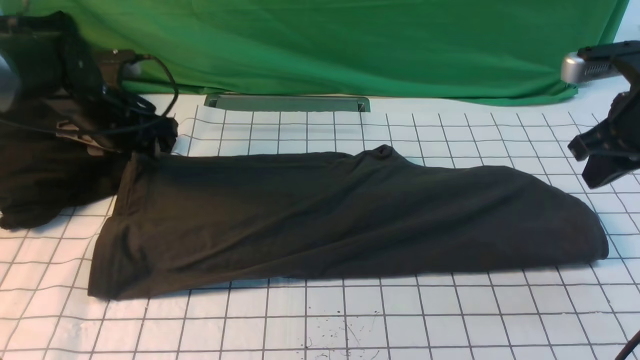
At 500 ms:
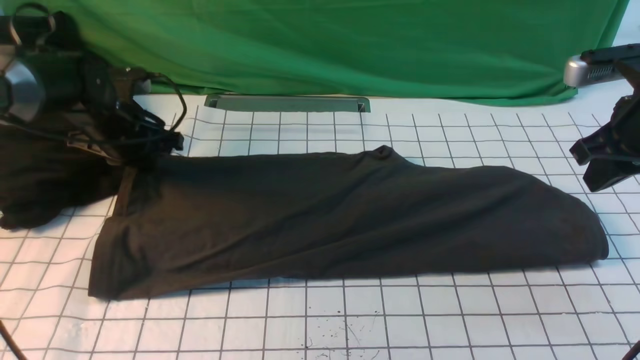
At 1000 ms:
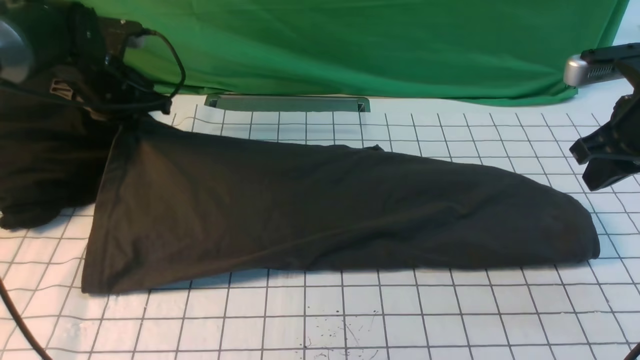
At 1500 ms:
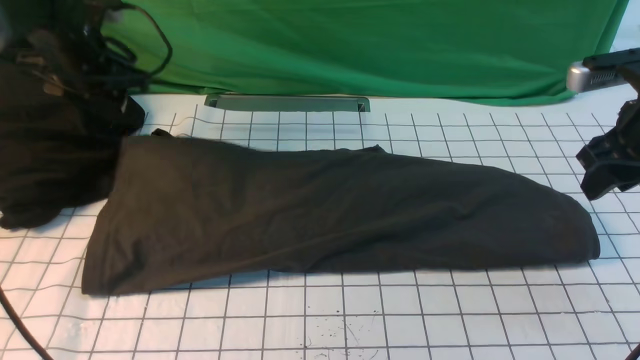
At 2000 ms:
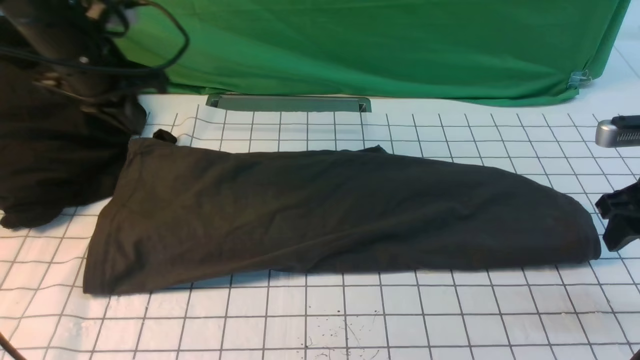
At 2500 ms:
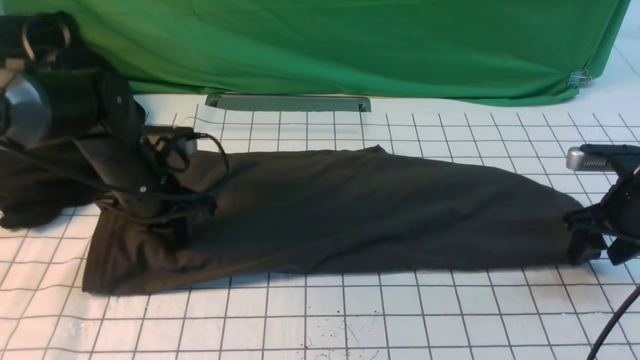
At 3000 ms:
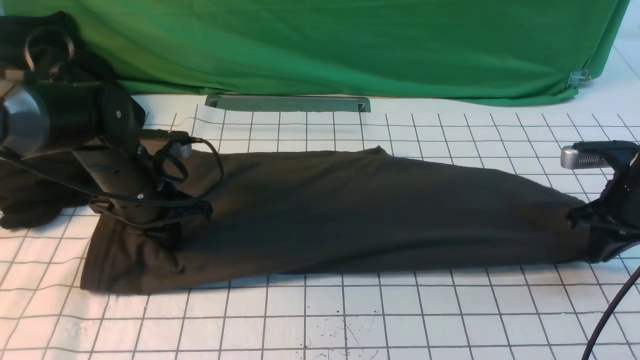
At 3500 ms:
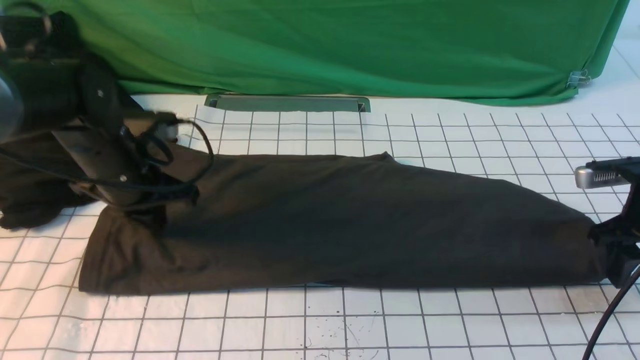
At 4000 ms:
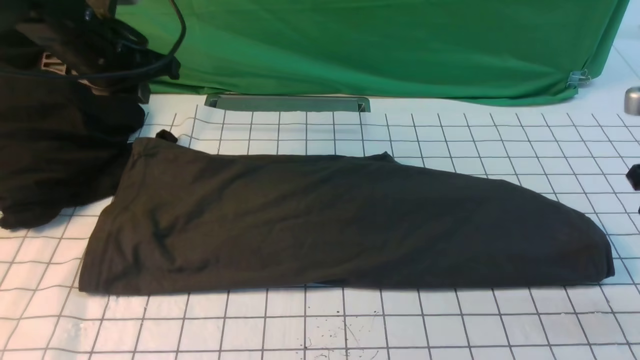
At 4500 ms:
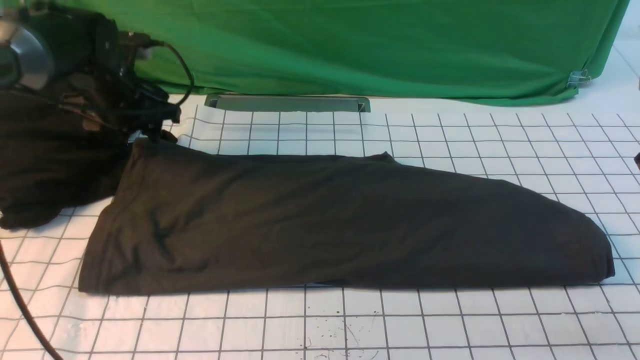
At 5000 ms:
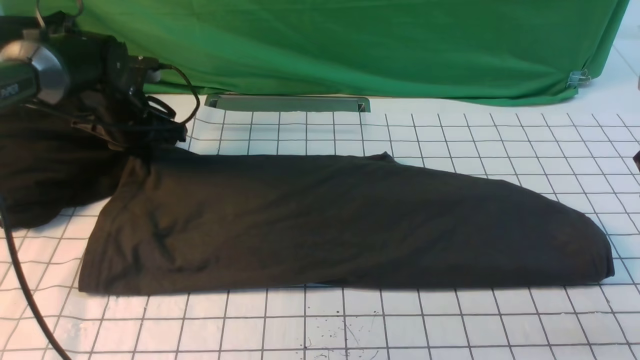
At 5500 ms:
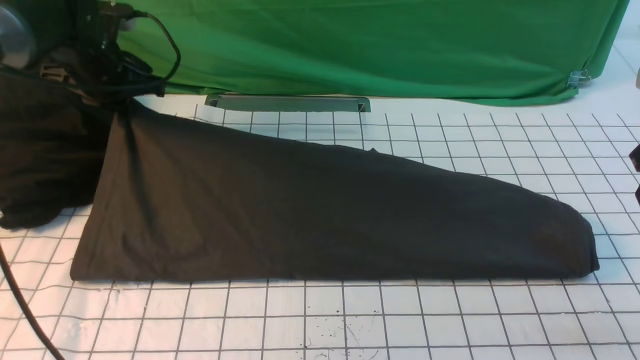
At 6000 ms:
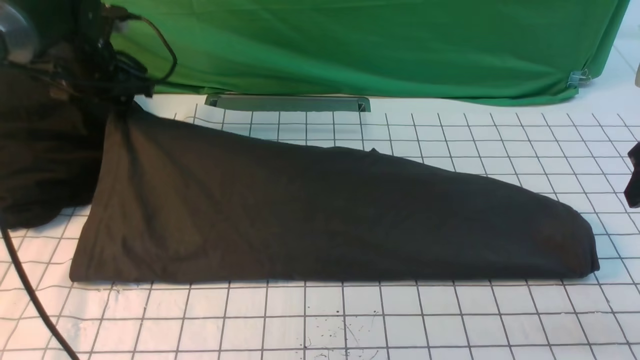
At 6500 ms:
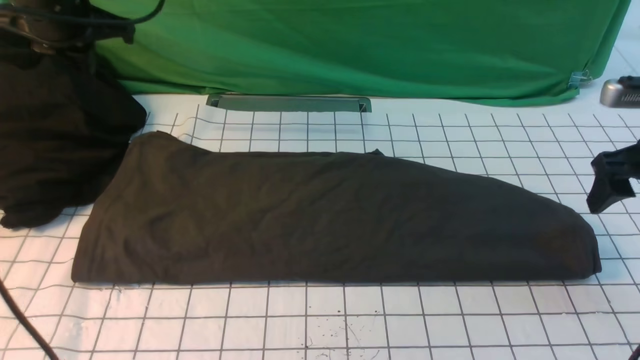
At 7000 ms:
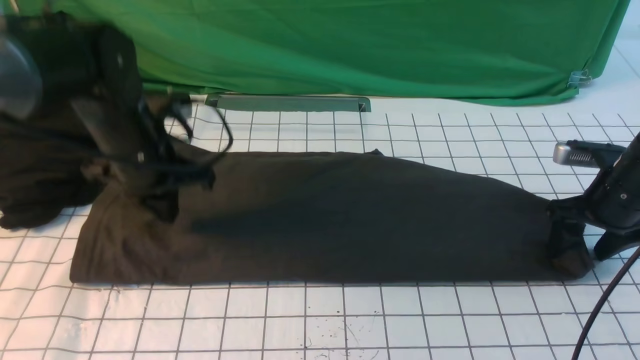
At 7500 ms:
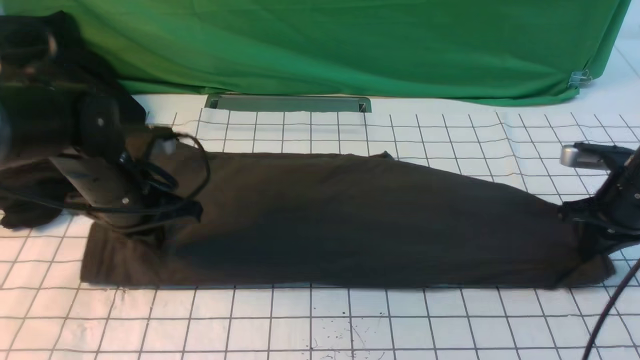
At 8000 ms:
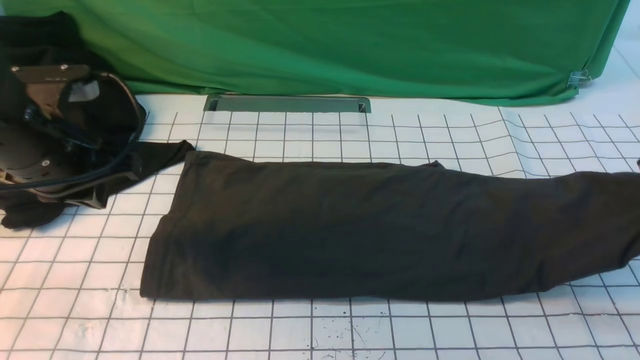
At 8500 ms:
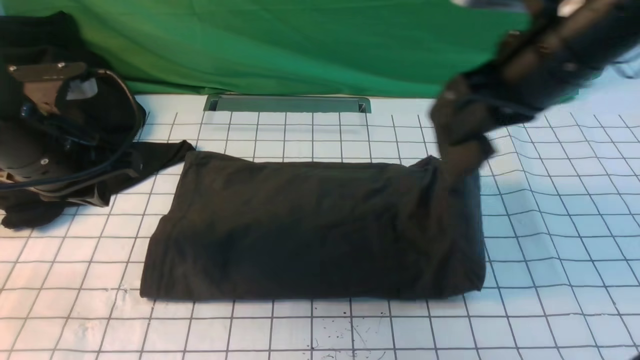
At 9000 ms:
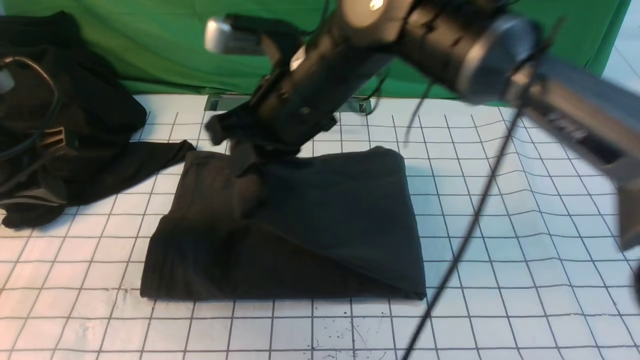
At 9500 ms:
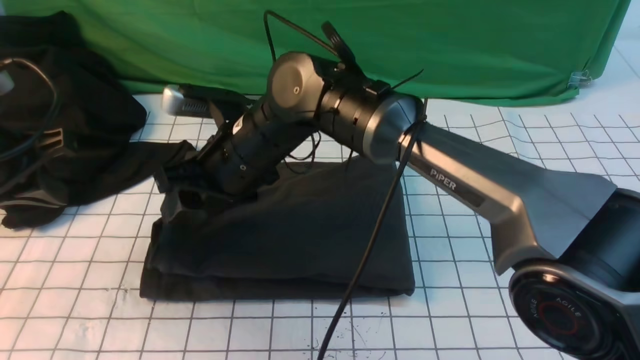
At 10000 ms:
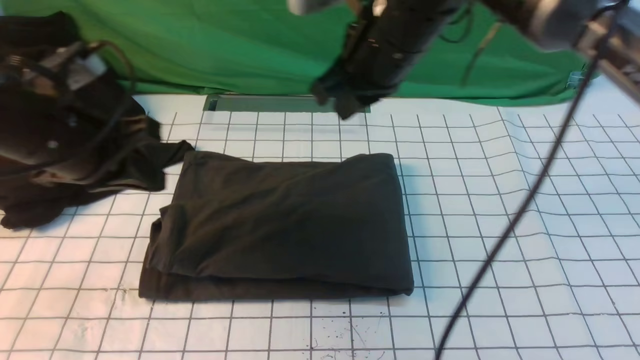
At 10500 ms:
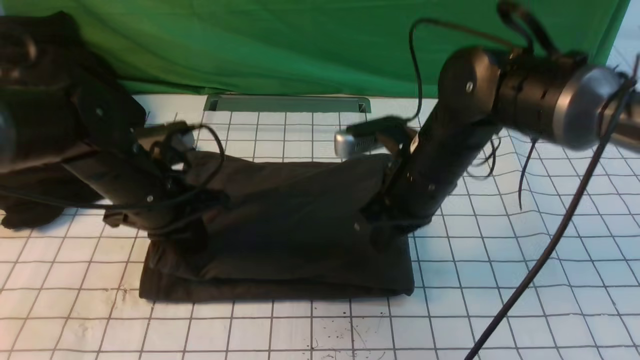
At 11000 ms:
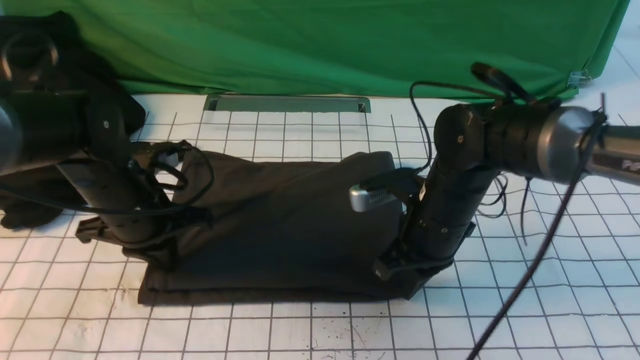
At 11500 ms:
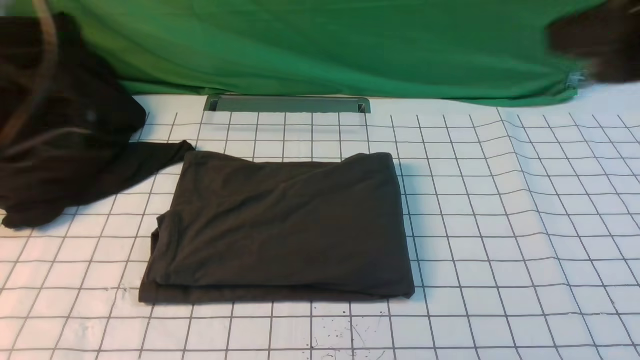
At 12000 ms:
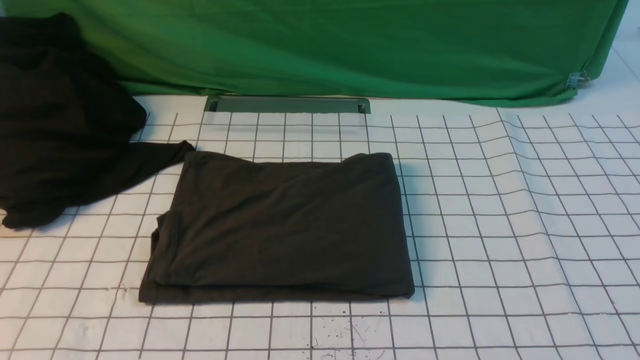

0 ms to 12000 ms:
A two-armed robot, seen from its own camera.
Step, 0 ms to 7000 ms: use the right arm to clamp the right edge of the fabric.
Step, 7500 ms to 9500 ms: use the right arm to drag the right edge of the fabric to the left and folds it over the left edge.
0 ms to 2000 ms: The left gripper shifts about 5 cm upward, and closes up. The right gripper goes about 5 cm downward, and opens.
2000 ms to 4000 ms: The right gripper closes, then reopens; the left gripper reaches some 10 cm downward, then returns.
4000 ms to 6000 ms: The left gripper shifts about 5 cm forward, travels downward and back again, about 10 cm each way, and opens its fingers.
6000 ms to 8000 ms: The left gripper shifts approximately 20 cm backward, and closes its fingers; the right gripper goes downward and returns, about 15 cm each way, and closes its fingers.
8000 ms to 10000 ms: The left gripper reaches some 5 cm to the left, then returns; the right gripper is displaced to the left by some 30 cm, and opens and closes again.
10000 ms to 12000 ms: The left gripper shifts approximately 30 cm backward; the right gripper moves backward and to the right, about 40 cm.

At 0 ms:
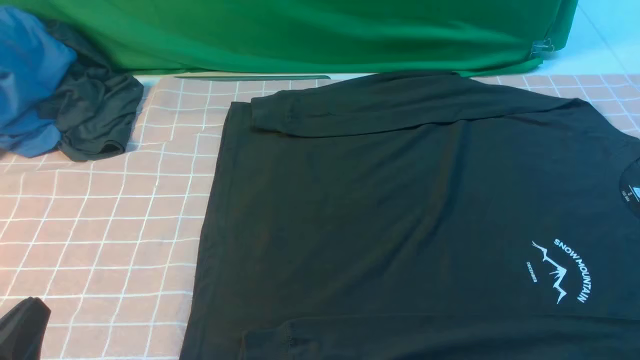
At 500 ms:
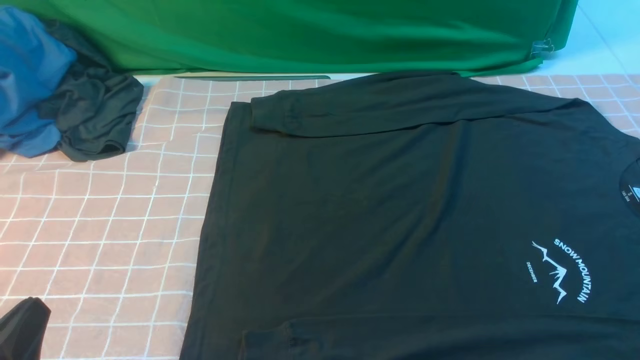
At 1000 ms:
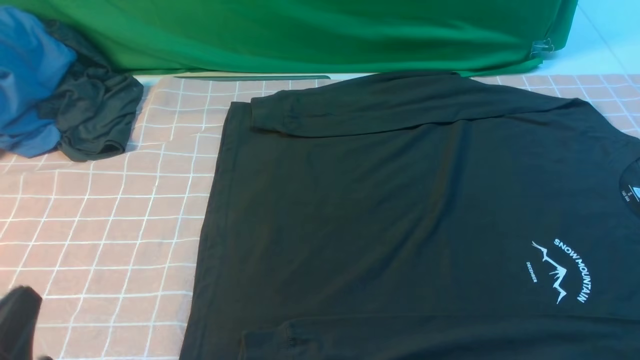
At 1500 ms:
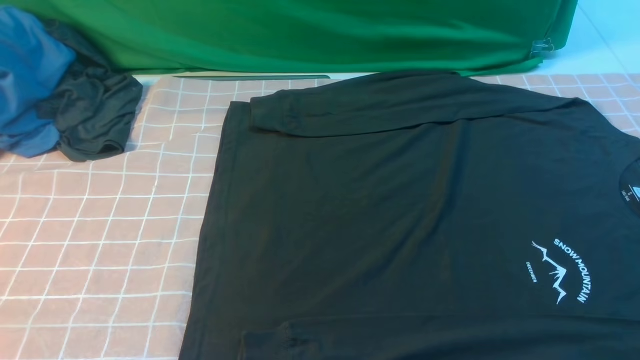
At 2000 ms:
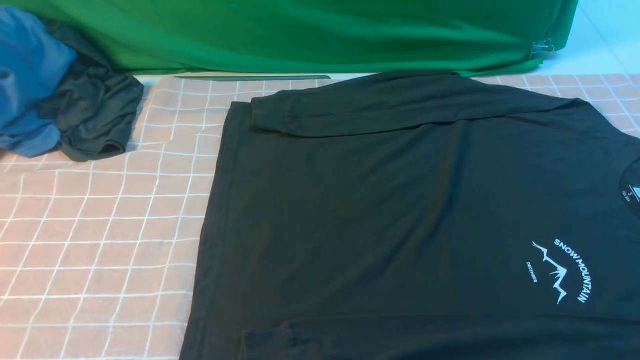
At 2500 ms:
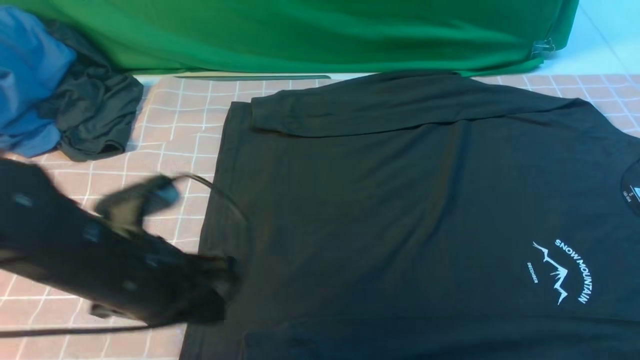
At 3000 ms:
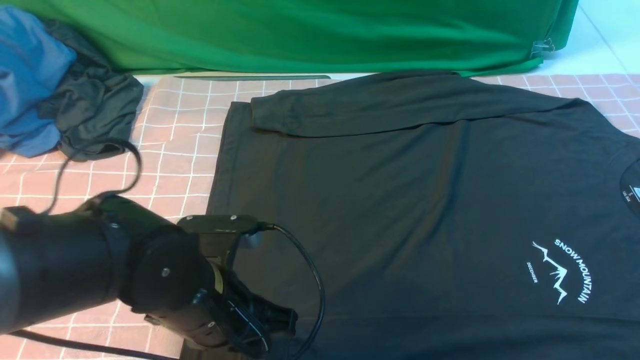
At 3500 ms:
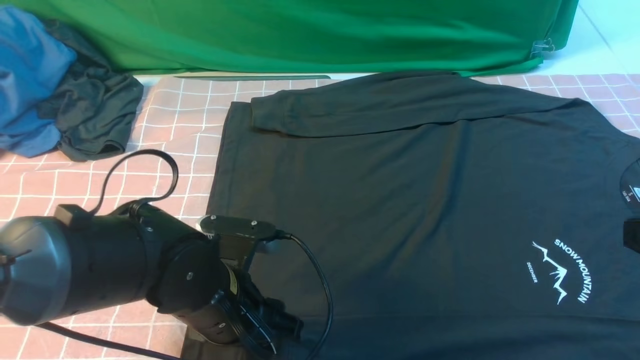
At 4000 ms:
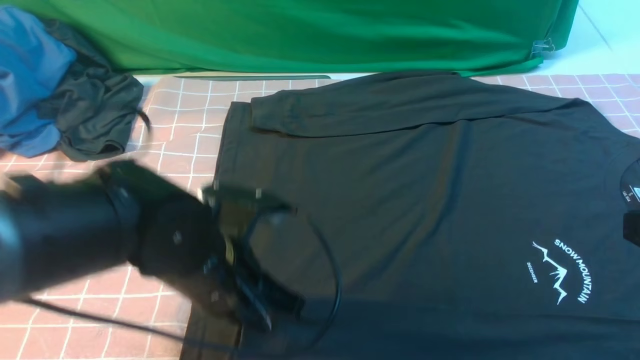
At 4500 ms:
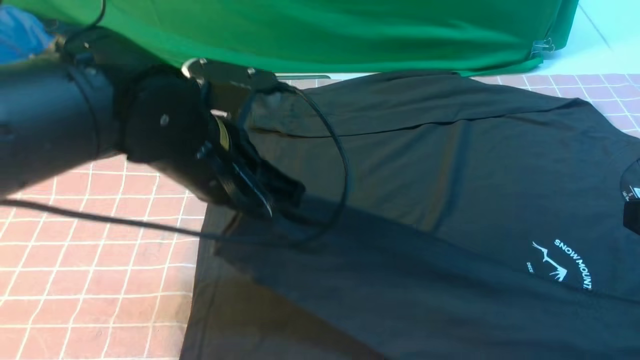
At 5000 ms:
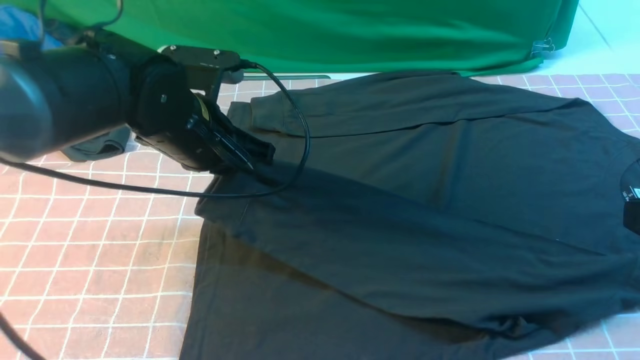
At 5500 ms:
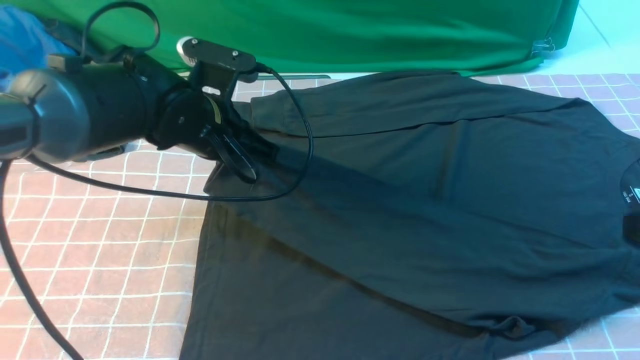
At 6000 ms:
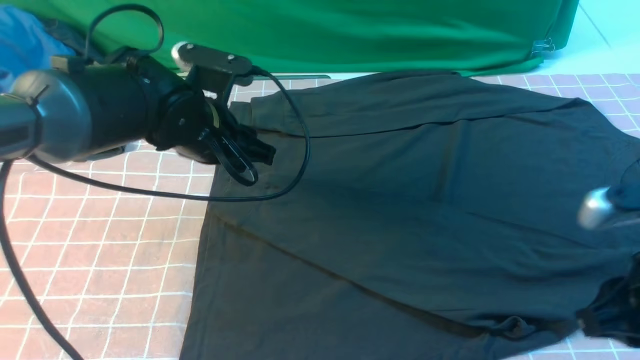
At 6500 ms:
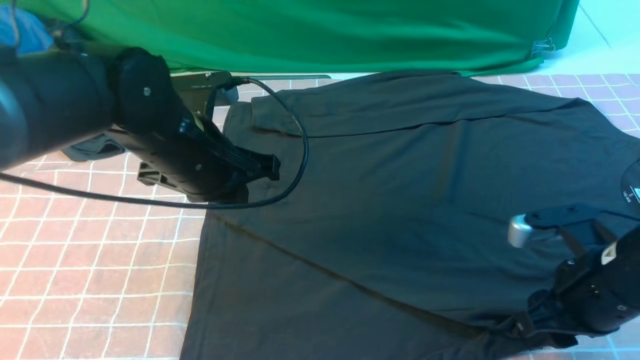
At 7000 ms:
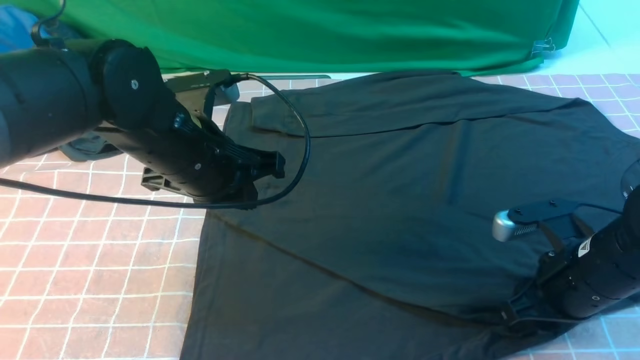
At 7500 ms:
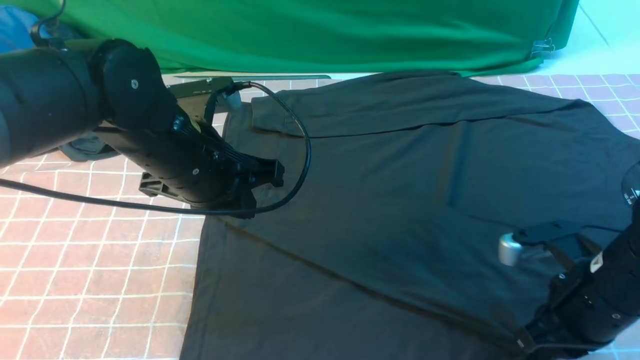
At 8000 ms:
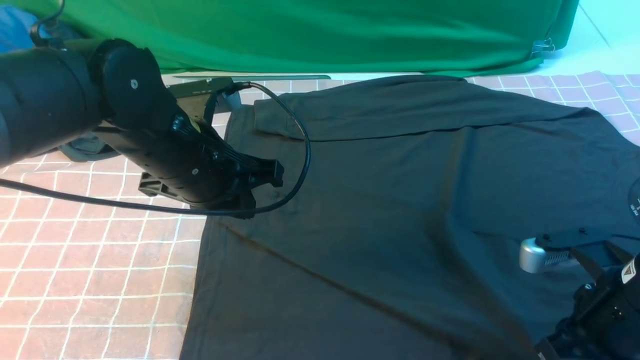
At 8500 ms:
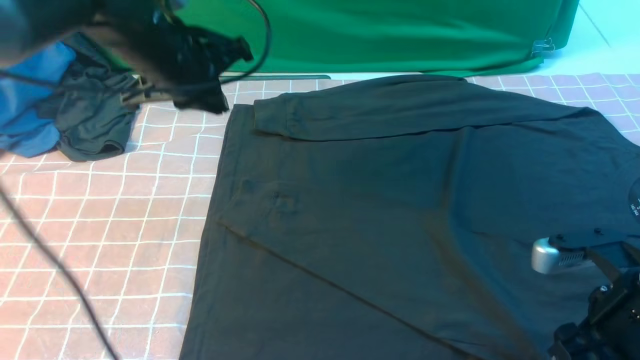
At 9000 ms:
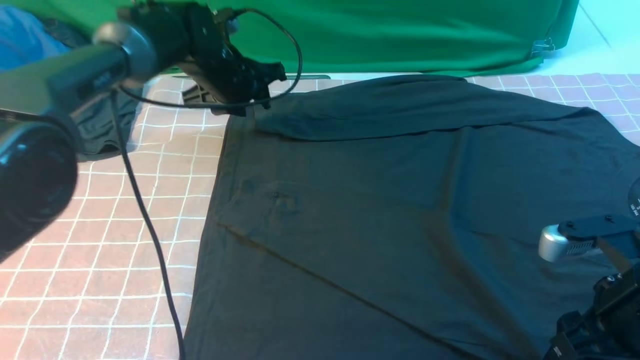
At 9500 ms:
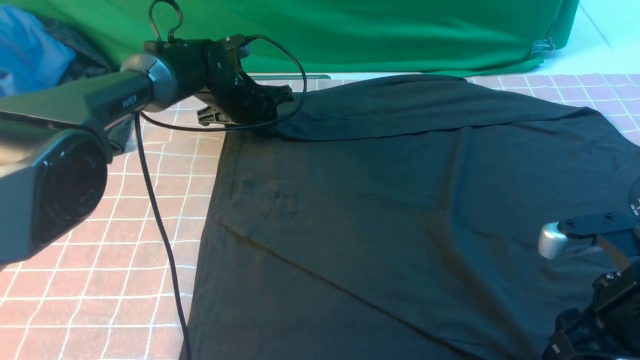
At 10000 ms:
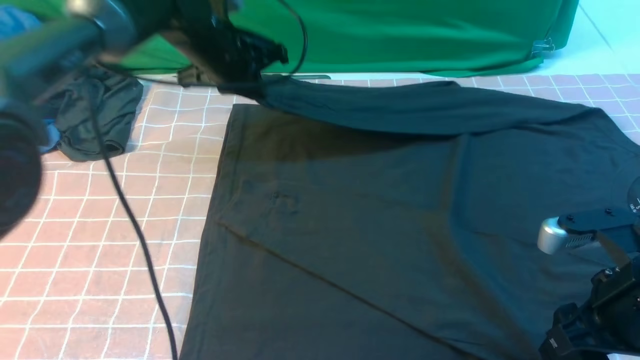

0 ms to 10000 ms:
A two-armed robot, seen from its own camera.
Step, 0 ms to 3500 ms: use the left arm to clamp the cuff closest to it.
Step, 4000 ms to 5500 ms: use the left arm to drag and place the cuff at the centered position on the left edge of the fabric.
Step, 6000 ms to 9500 ms: use the left arm to clamp the cuff farthest from it.
0 ms to 2000 ms: The left gripper heads upward and forward, covering roughly 15 cm.
2000 ms to 4000 ms: The right gripper shifts some 10 cm upward and forward, and closes up. Meanwhile the left gripper is displaced to the right, downward and forward by about 20 cm, and opens, then closes once more.
4000 ms to 6000 ms: The left gripper goes roughly 15 cm forward, and opens its fingers. The right gripper is displaced downward by some 5 cm.
6000 ms to 8000 ms: The left gripper shifts roughly 5 cm backward, and closes, while the right gripper is displaced downward by roughly 5 cm.
8000 ms to 10000 ms: The left gripper moves forward, about 15 cm, and opens, then closes once more, while the right gripper opens up.
